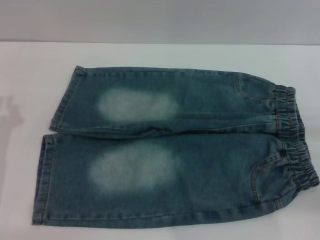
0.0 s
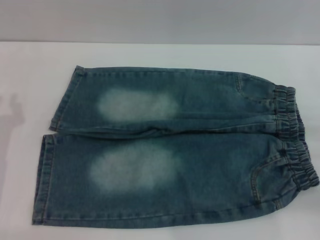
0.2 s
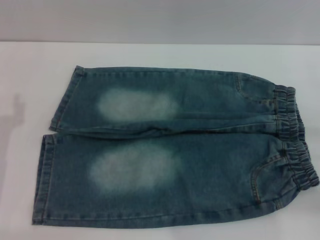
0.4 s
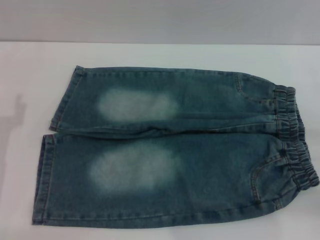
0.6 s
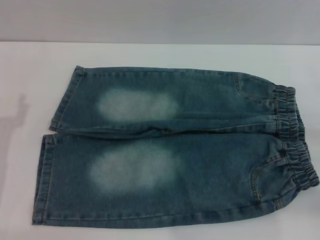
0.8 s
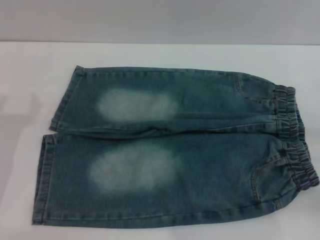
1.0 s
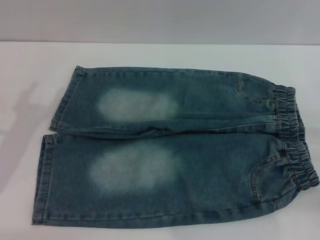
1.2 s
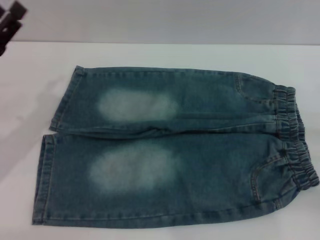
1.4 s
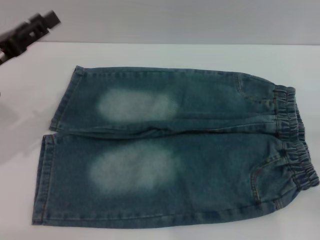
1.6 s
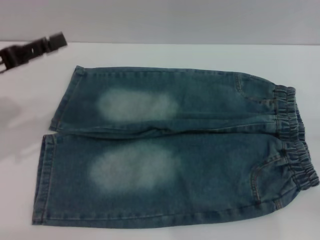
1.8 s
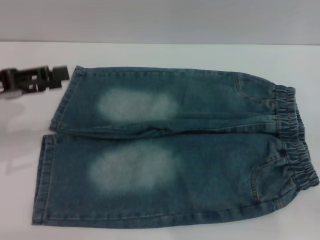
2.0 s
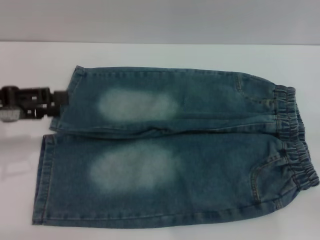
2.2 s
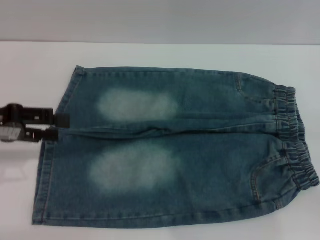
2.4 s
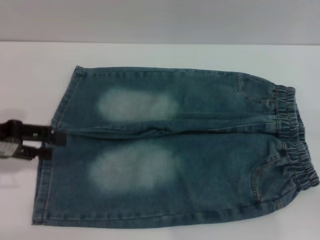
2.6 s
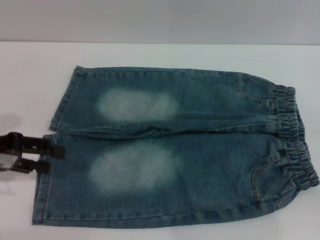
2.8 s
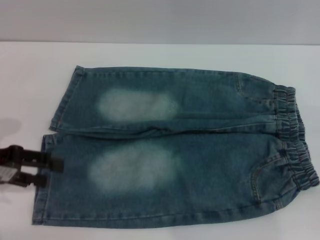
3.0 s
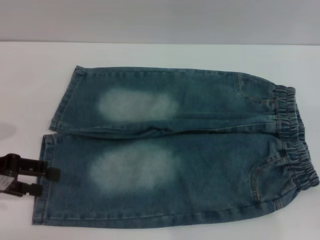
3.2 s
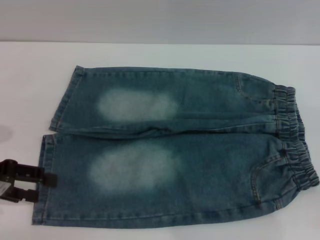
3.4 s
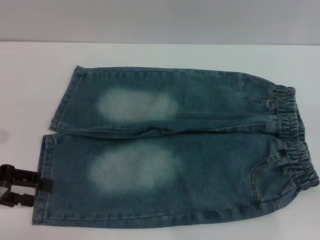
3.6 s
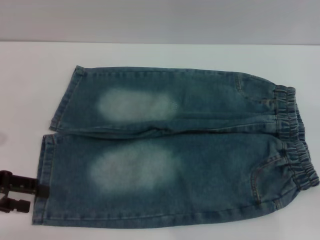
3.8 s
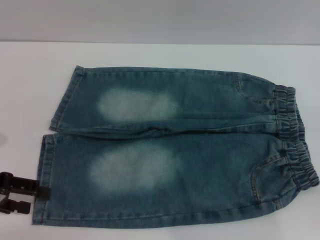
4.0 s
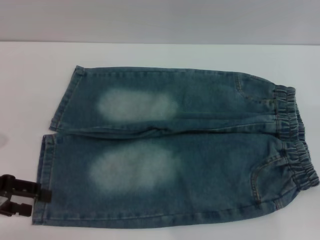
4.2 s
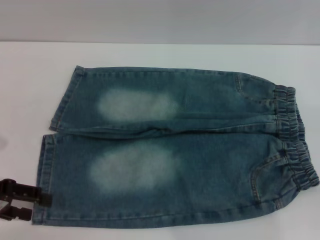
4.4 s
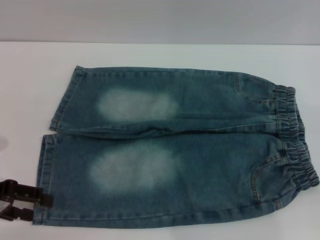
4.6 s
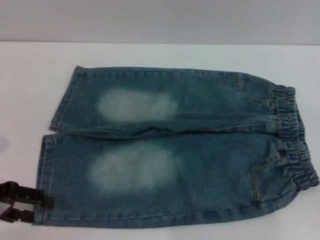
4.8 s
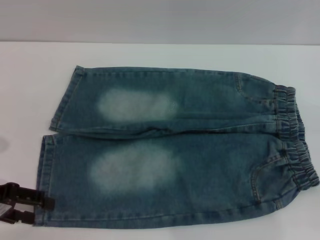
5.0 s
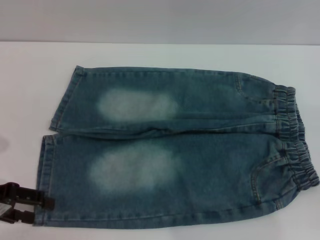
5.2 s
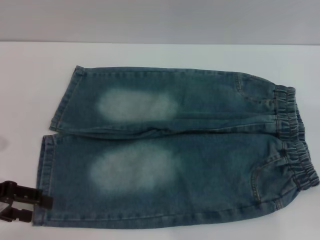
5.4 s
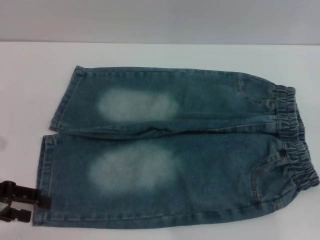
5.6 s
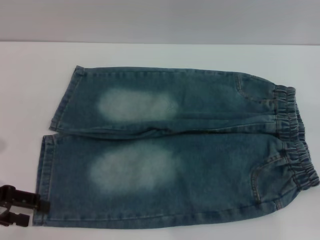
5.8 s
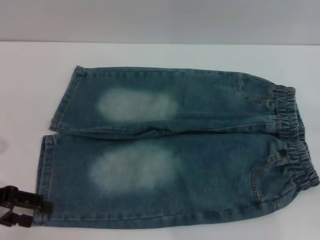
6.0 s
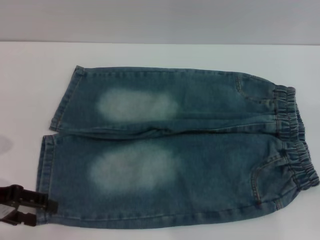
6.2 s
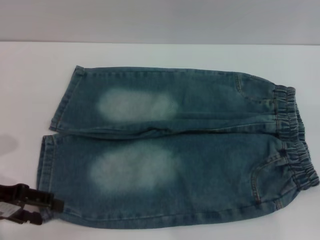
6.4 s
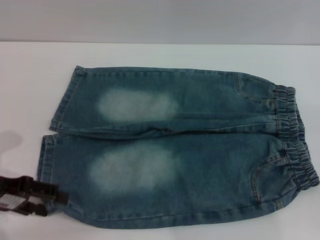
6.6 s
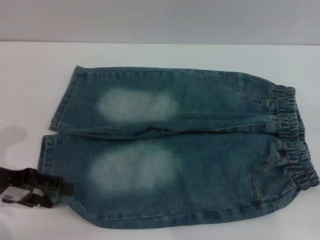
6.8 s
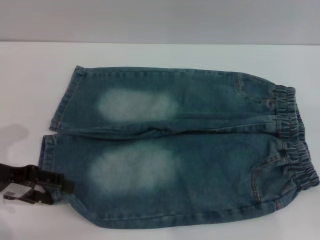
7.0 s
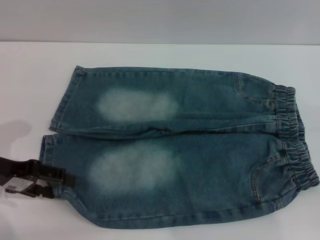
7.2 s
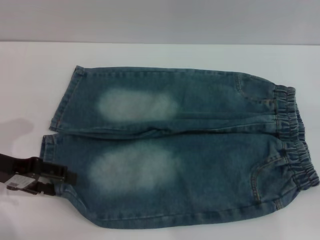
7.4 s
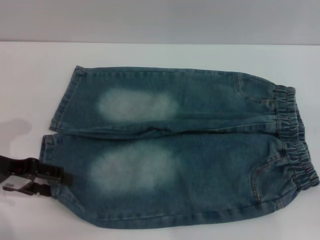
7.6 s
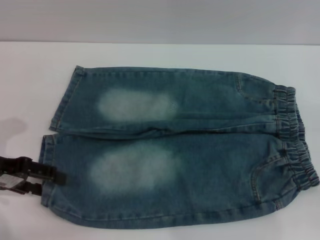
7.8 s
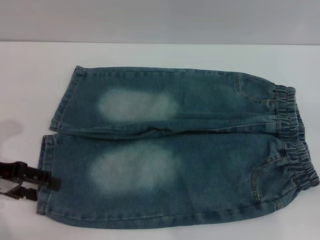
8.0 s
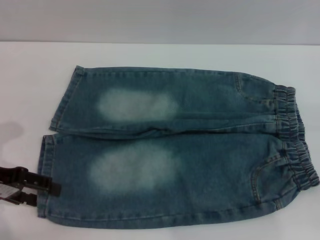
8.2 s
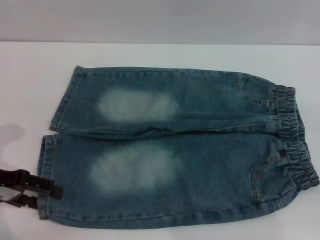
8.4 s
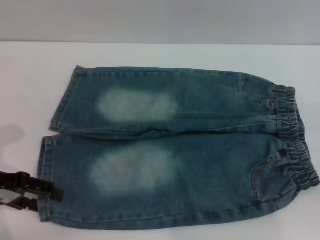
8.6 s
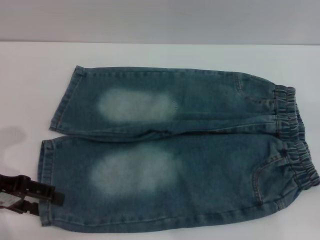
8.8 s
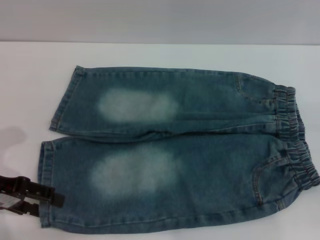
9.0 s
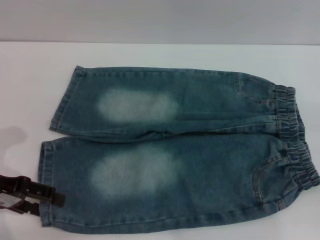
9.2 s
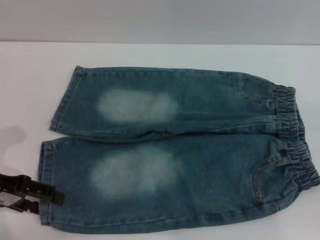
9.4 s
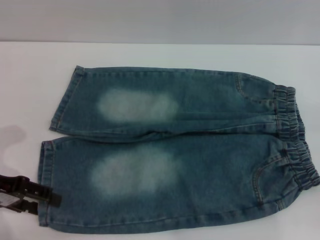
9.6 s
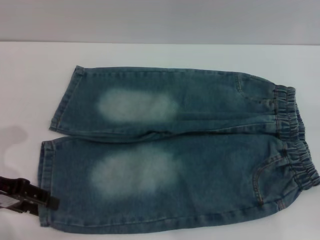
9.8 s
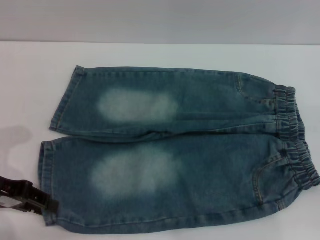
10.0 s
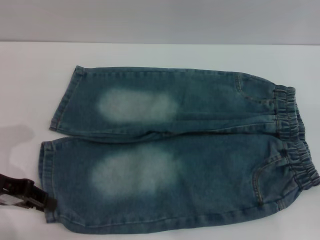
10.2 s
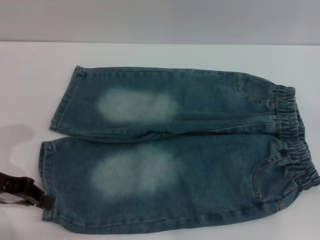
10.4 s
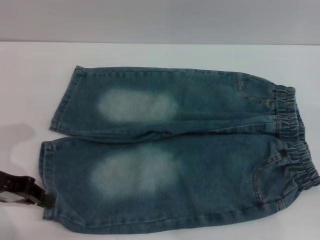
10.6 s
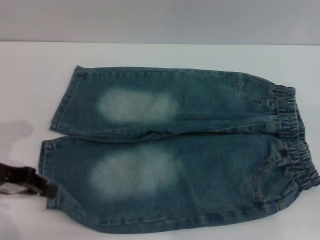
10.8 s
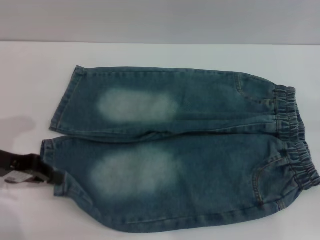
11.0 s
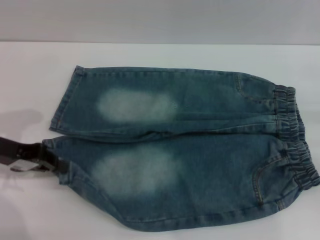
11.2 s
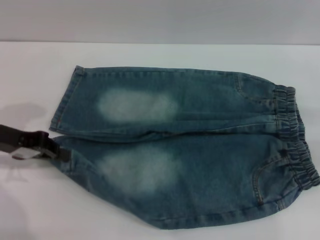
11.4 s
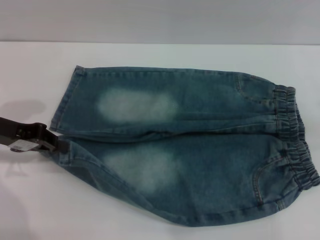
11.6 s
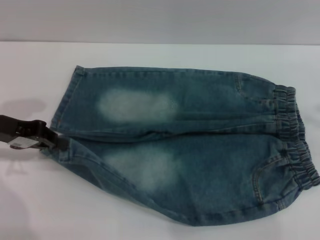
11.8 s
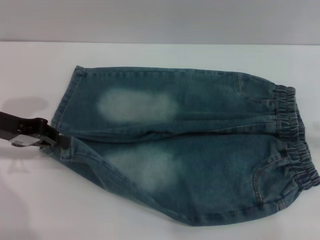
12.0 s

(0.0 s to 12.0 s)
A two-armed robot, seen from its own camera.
0.0 s - 1.6 s: The left gripper heads forward and upward, covering about 10 cm, and opens its fingers.
3.0 s - 4.4 s: There are only small adjustments of the grippers.
4.4 s - 6.0 s: Both grippers stay put.
6.0 s - 9.0 s: The grippers make only small movements.
9.0 s - 10.4 s: The left gripper closes up.
10.4 s - 12.0 s: The right gripper goes about 20 cm upward and forward; the left gripper shifts by about 5 cm.

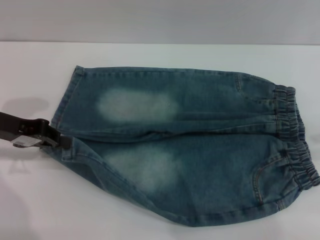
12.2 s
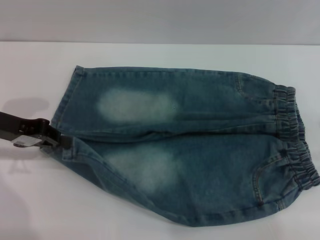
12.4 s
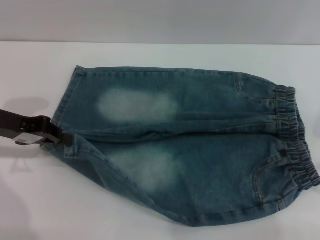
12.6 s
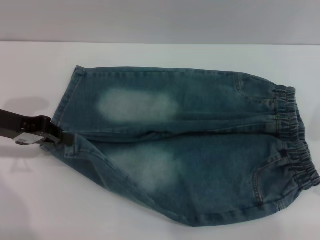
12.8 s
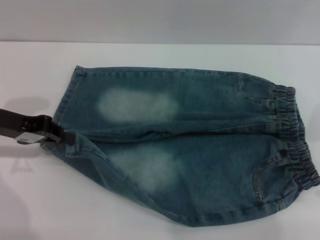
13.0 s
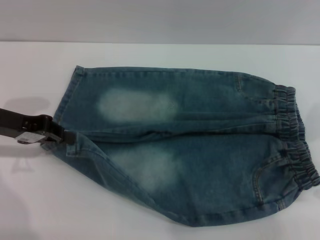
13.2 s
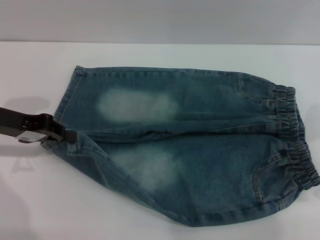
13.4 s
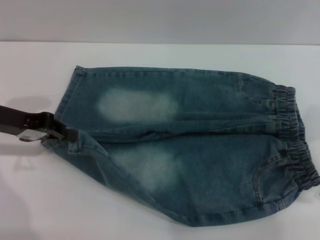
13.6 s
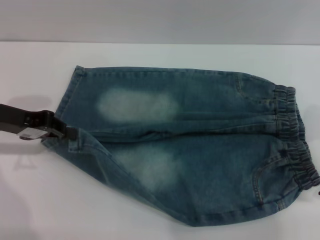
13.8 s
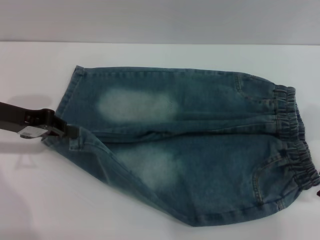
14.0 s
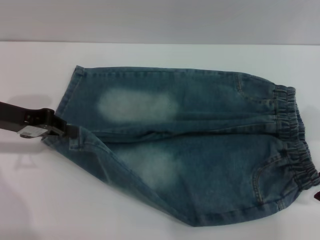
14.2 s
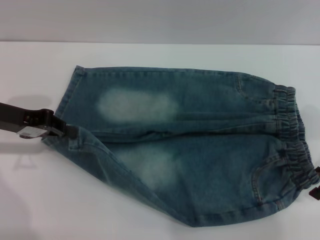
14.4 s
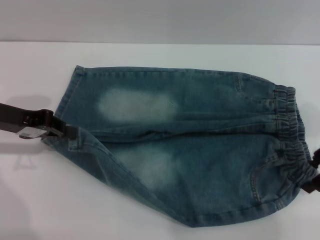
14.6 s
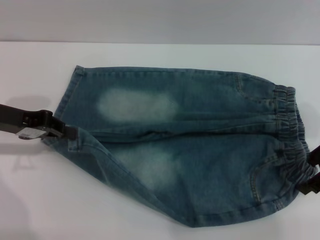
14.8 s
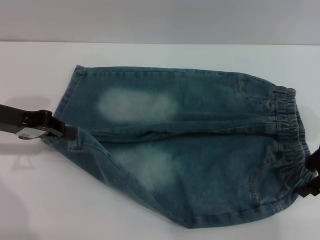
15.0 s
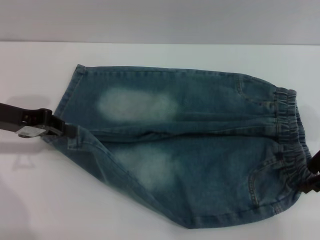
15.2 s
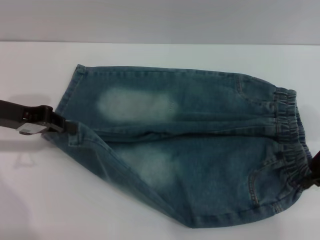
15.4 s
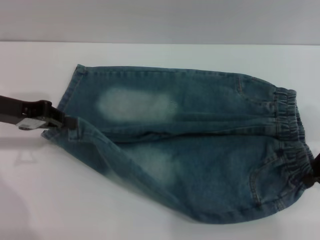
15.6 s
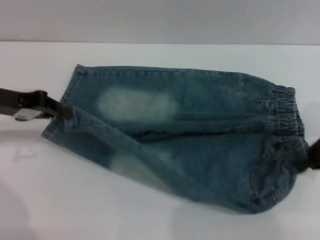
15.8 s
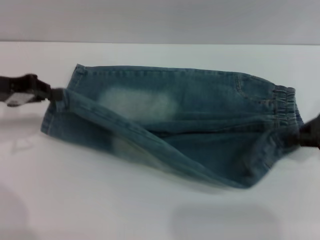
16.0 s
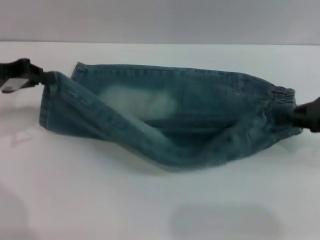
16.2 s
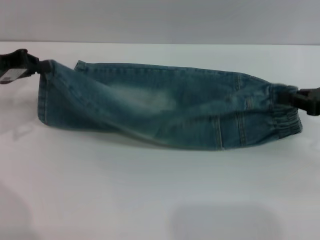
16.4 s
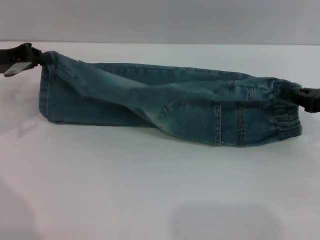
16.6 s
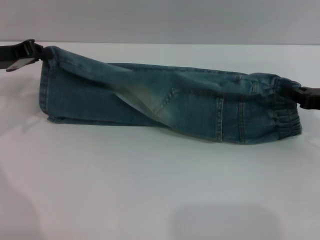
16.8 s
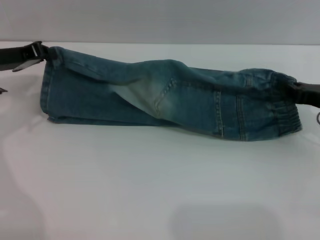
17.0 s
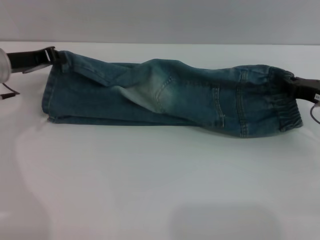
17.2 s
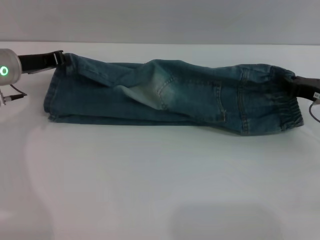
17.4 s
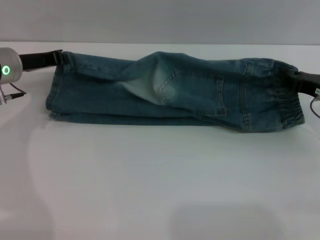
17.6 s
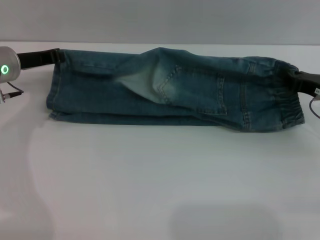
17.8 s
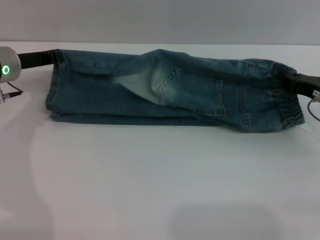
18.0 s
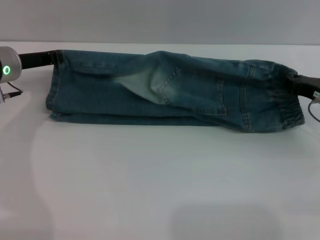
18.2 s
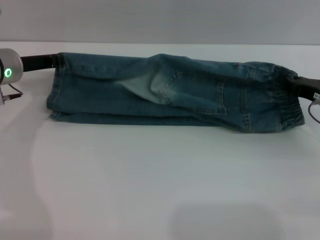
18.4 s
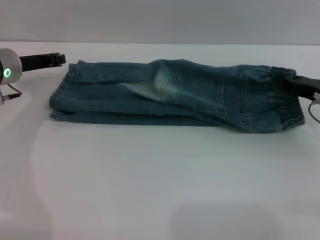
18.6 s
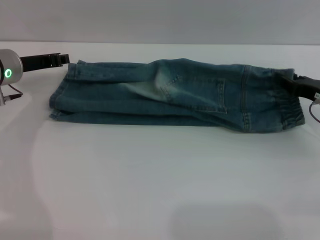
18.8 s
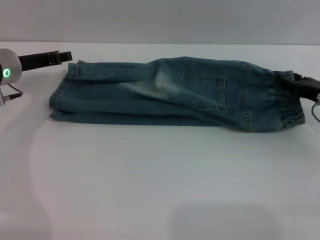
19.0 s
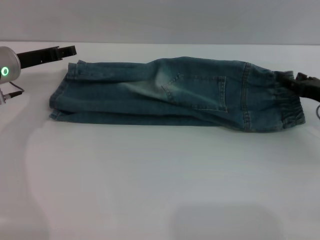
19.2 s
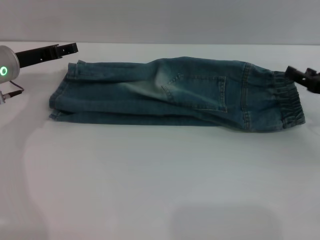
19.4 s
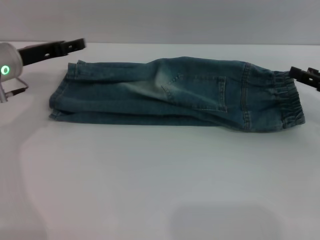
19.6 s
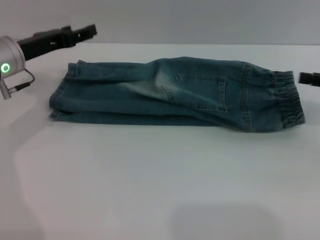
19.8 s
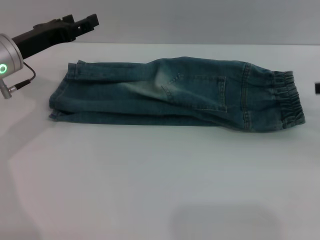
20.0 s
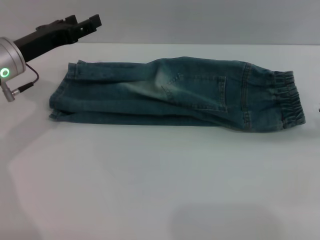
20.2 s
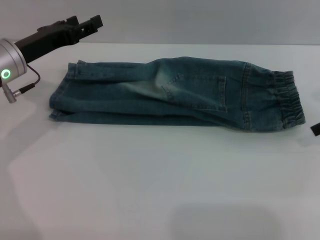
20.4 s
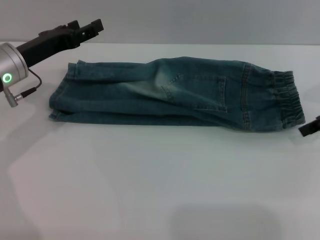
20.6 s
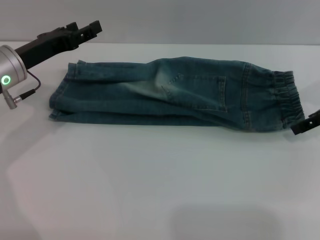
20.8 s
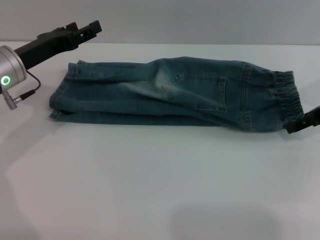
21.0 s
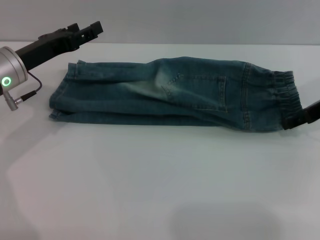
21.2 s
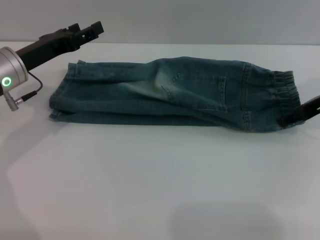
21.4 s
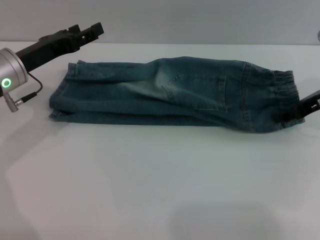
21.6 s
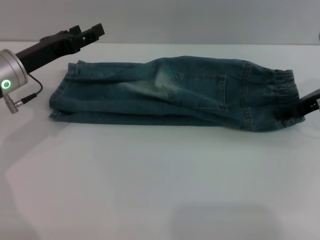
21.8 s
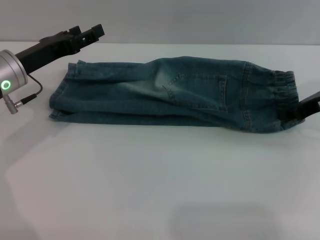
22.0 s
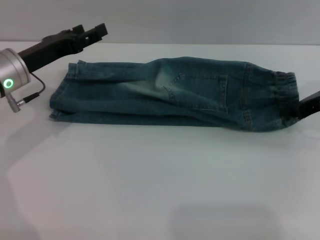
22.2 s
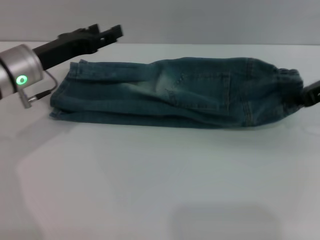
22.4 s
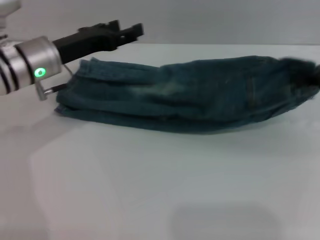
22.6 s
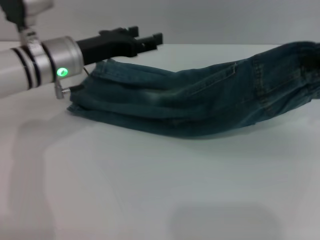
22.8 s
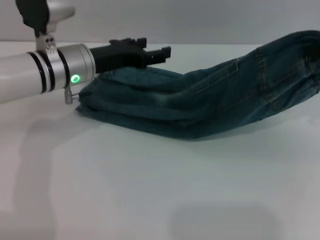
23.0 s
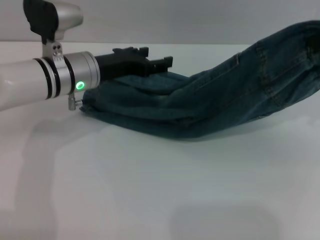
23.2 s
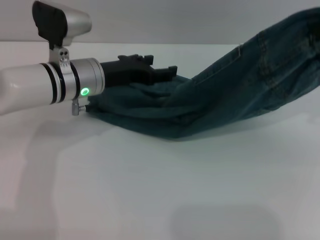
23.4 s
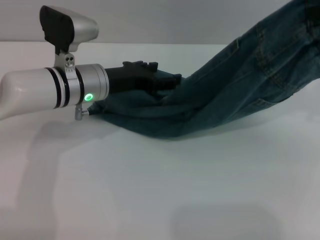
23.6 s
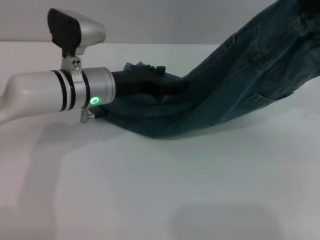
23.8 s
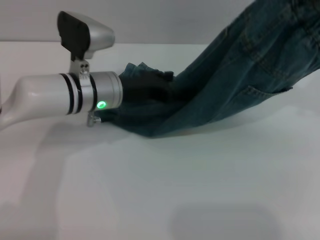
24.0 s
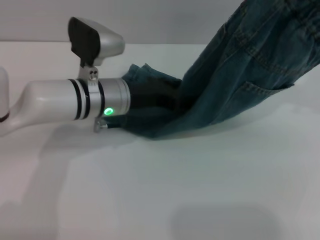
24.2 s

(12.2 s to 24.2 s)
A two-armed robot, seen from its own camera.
Step, 12.2 s - 19.6 s: Fold the bottom of the pants upward with both grippers.
12.2 s - 13.8 s: The right gripper heads downward and to the left, covering roughly 10 cm.
13.8 s - 15.2 s: There are only small adjustments of the grippers.
15.2 s - 16.6 s: The left gripper ends up some 5 cm from where it was. The right gripper changes place by roughly 5 cm, and closes up.
16.6 s - 18.2 s: The left gripper moves to the right, about 5 cm. The right gripper shifts by roughly 5 cm.
18.2 s - 19.8 s: The left gripper opens its fingers. Meanwhile the right gripper travels upward and to the right by approximately 10 cm, and opens.
19.8 s - 21.2 s: The right gripper moves to the left and forward, about 10 cm.
21.2 s - 22.6 s: The left gripper ends up roughly 5 cm from where it was; the right gripper shifts roughly 5 cm upward, and closes.
22.6 s - 24.2 s: The left gripper moves to the right, approximately 10 cm; the right gripper moves upward, some 15 cm.
